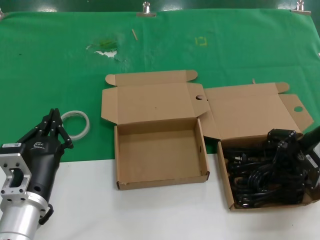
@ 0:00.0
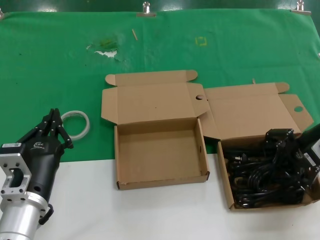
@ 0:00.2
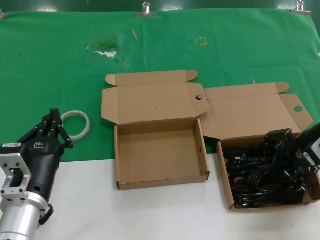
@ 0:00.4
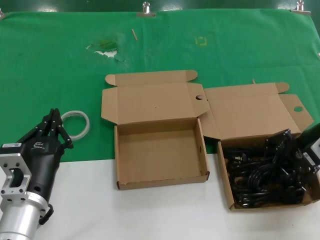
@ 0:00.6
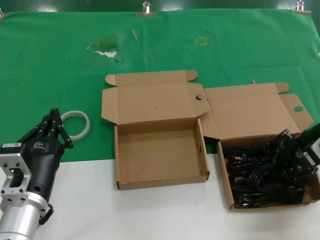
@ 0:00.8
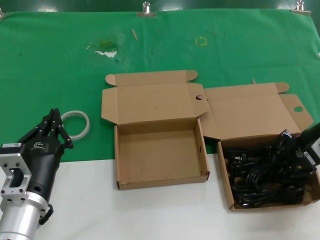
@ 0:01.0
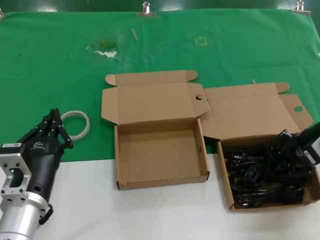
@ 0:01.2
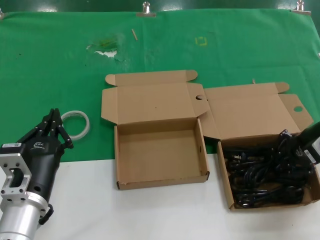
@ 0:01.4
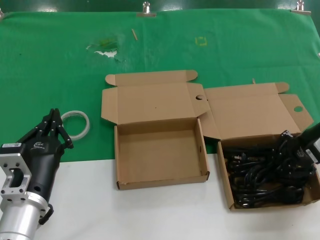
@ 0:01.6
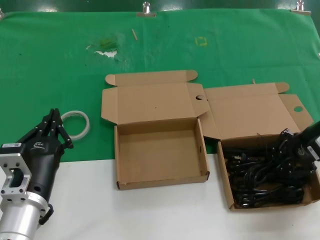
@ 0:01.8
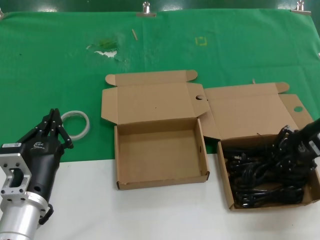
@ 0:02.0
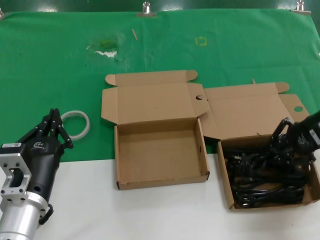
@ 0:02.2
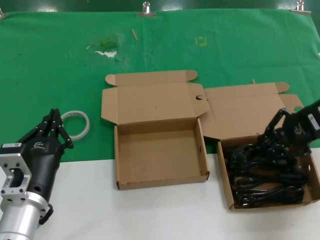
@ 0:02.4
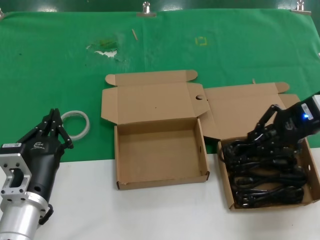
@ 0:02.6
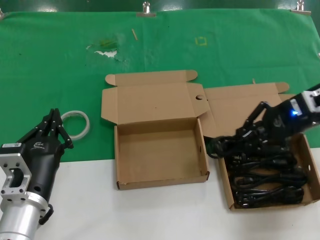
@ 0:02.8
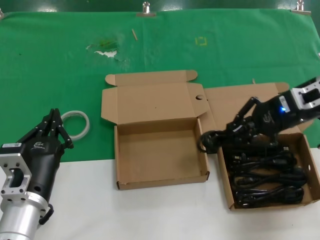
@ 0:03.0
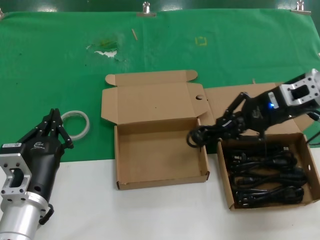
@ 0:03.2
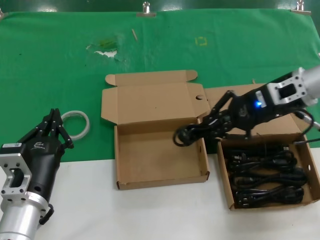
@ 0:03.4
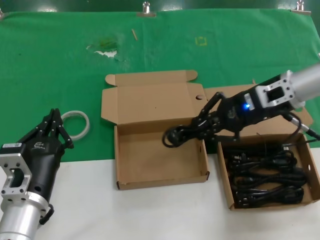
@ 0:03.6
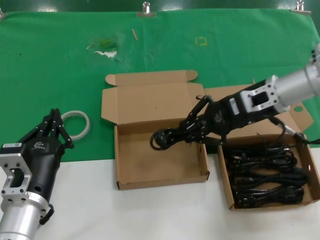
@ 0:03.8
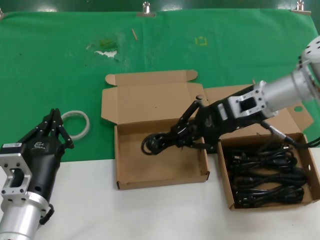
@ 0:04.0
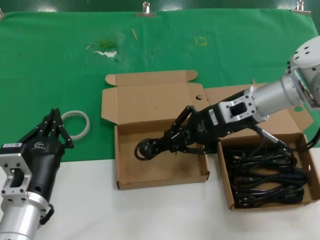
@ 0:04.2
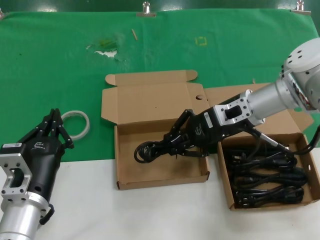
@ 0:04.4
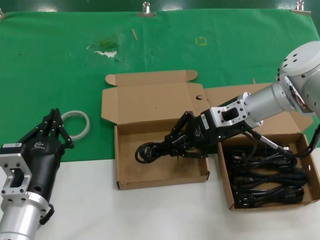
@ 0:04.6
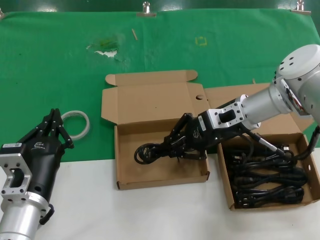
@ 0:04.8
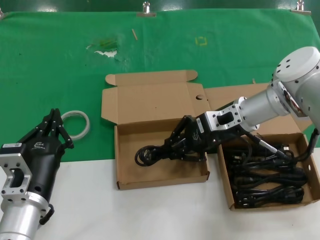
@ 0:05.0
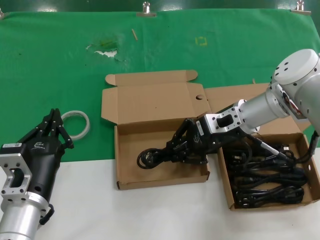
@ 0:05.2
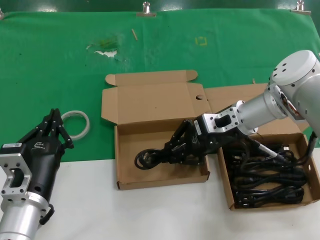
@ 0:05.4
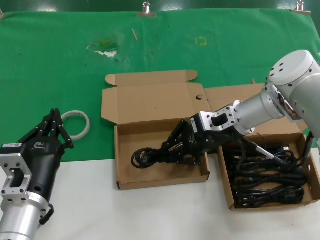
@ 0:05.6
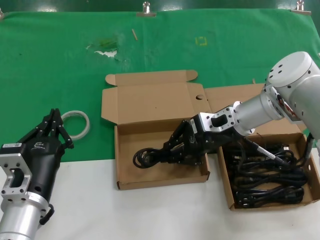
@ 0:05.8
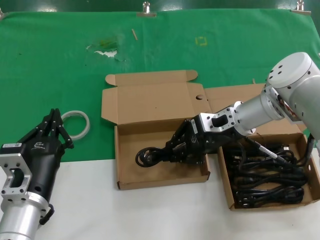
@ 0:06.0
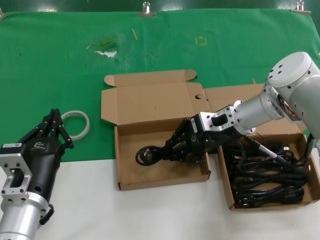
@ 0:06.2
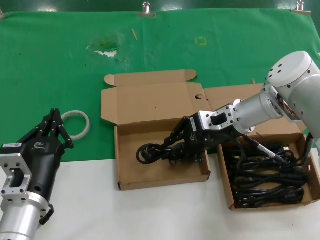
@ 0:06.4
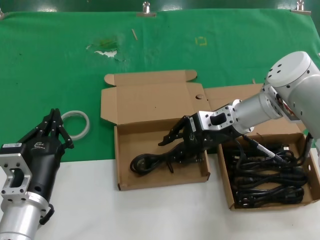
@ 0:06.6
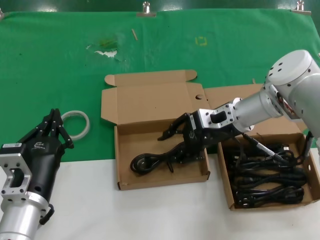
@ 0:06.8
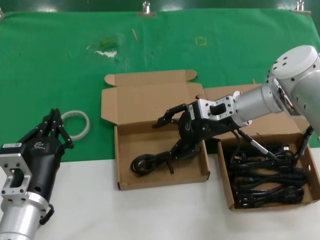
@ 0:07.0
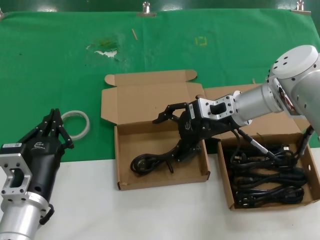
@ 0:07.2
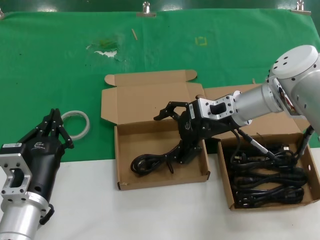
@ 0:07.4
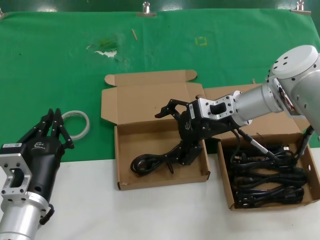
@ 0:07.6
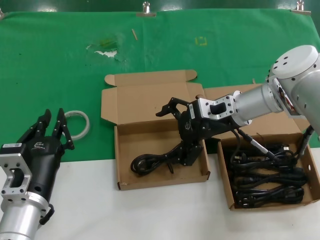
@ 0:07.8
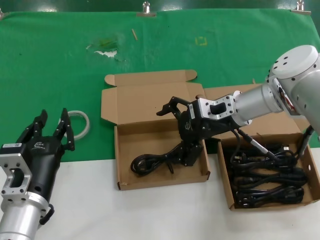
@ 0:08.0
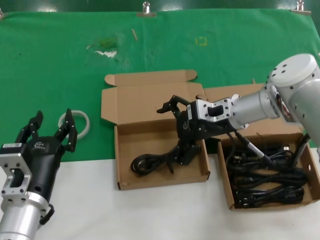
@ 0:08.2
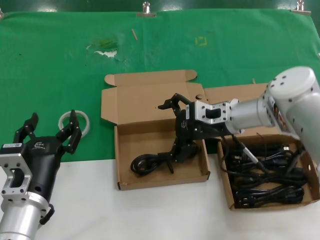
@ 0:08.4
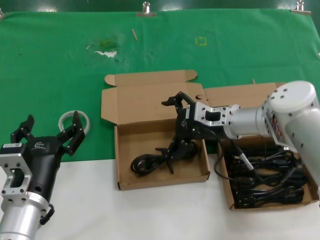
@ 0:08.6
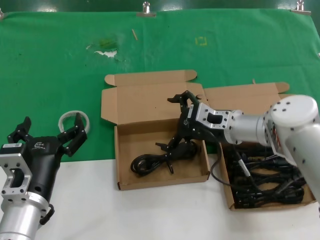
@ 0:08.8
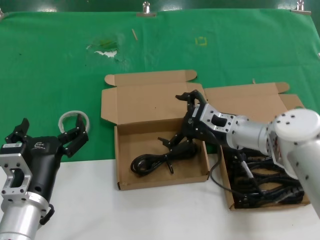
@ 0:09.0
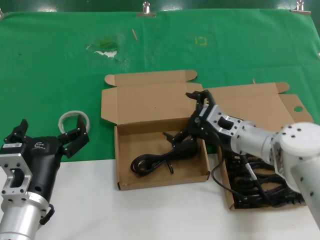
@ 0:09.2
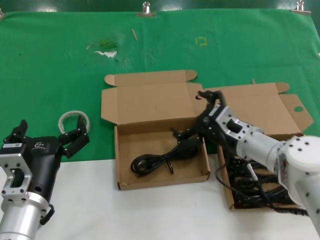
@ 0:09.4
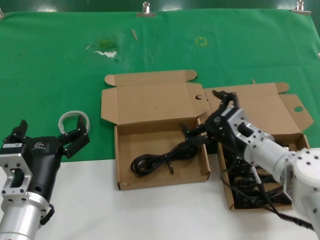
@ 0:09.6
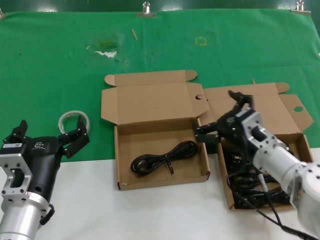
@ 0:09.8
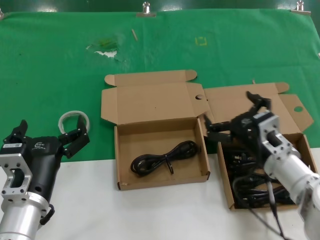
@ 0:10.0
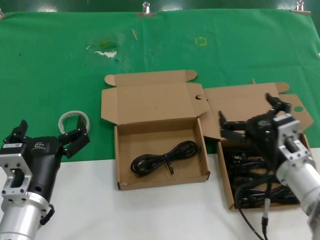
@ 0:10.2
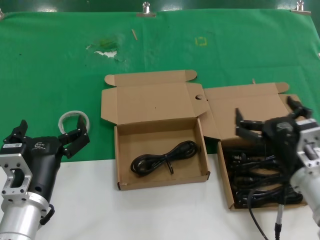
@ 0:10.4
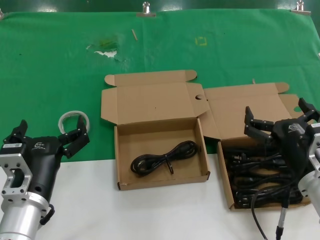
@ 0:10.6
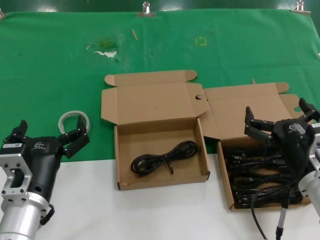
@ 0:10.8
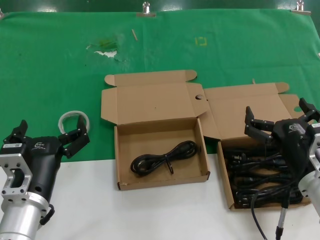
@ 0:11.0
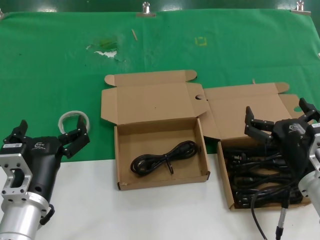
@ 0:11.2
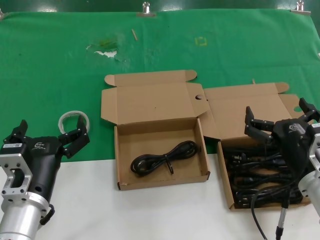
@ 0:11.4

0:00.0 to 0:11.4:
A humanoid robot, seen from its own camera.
Task of the whole recording: take the parts from the box containing them and put them into an empty box.
Step, 0:01.2 to 0:06.6: Place the data cable in the another box.
0:00.0 to 0:01.4: Neither hand changes place.
0:01.4 to 0:02.8: The right hand is displaced upward by some 5 cm.
0:02.8 to 0:04.2: The right hand goes approximately 15 cm to the left.
0:04.2 to 0:07.2: The hands stay close to where they were, moving slightly.
0:07.2 to 0:08.6: The right hand moves about 5 cm.
0:08.6 to 0:10.0: The right hand is displaced backward and downward by some 15 cm.
0:10.0 to 0:11.4: The right hand moves backward, about 5 cm.

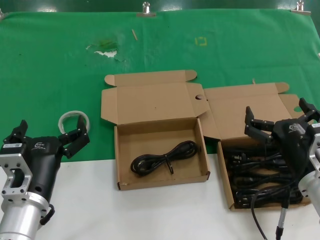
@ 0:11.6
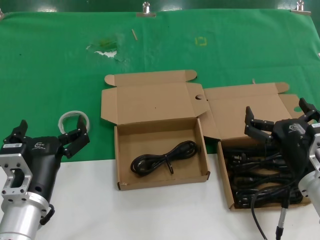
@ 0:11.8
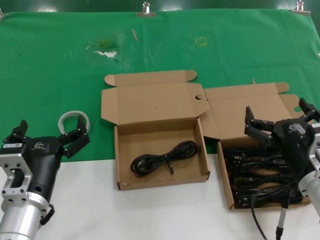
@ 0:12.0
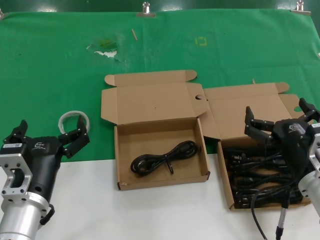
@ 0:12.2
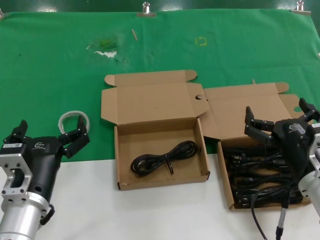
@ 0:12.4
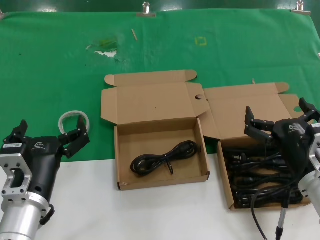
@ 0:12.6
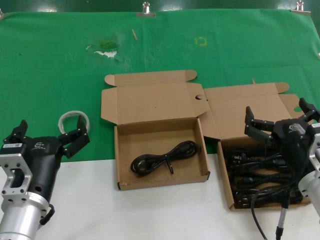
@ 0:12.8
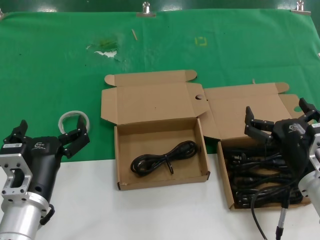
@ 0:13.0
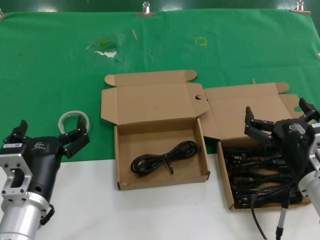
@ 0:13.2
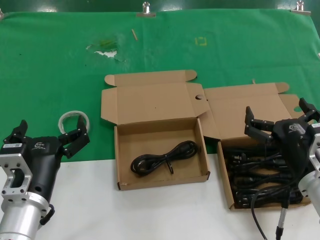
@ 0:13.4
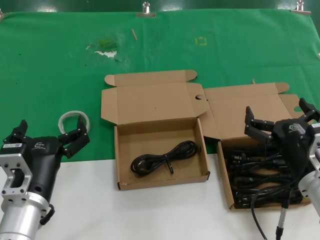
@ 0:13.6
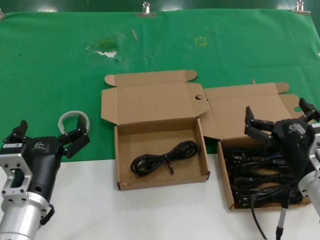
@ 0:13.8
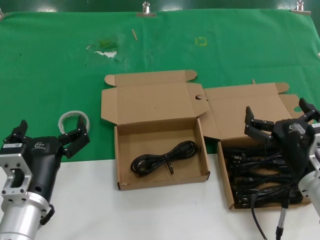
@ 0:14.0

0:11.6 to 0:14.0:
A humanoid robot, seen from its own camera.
Task of the whole recording: take the parts from the box containing them and put them into an empty box.
0:11.6 to 0:14.0: Both hands stay put.
